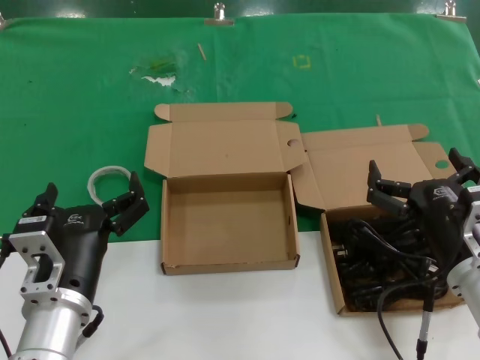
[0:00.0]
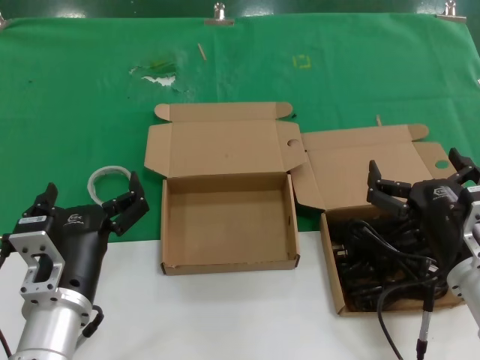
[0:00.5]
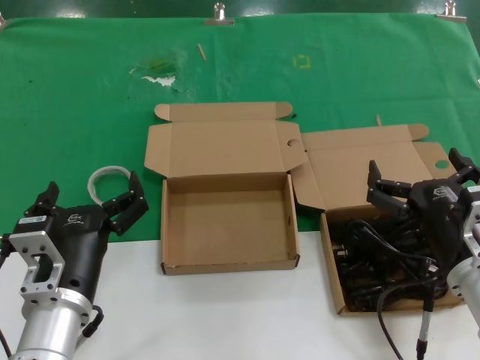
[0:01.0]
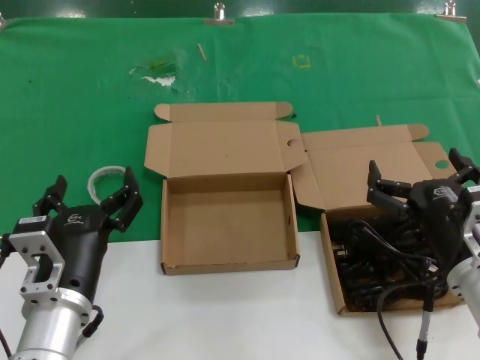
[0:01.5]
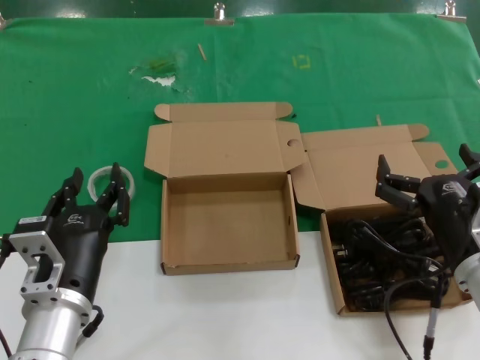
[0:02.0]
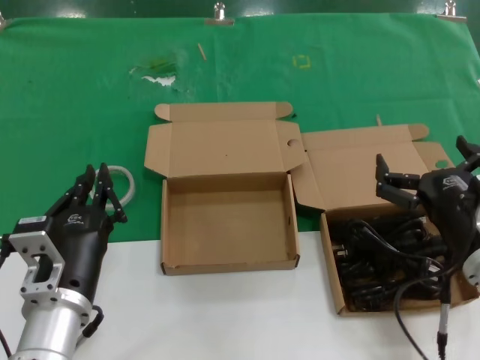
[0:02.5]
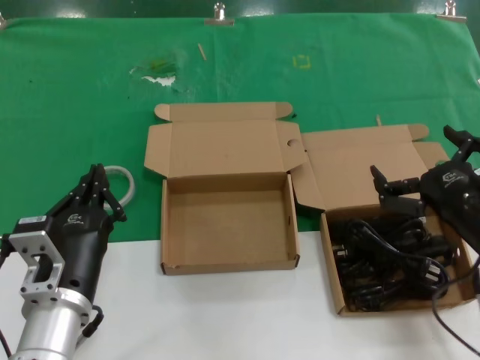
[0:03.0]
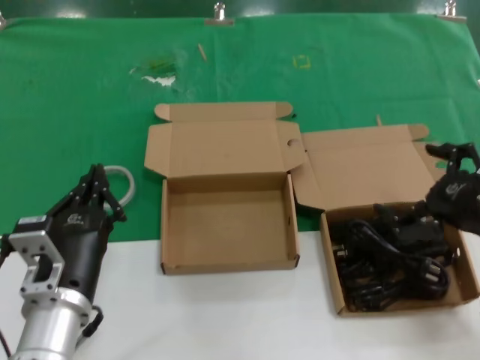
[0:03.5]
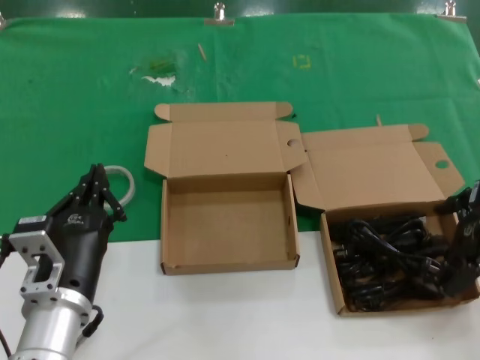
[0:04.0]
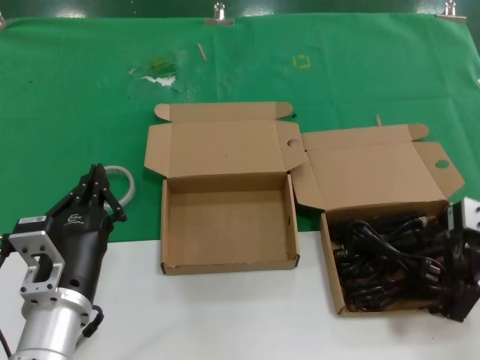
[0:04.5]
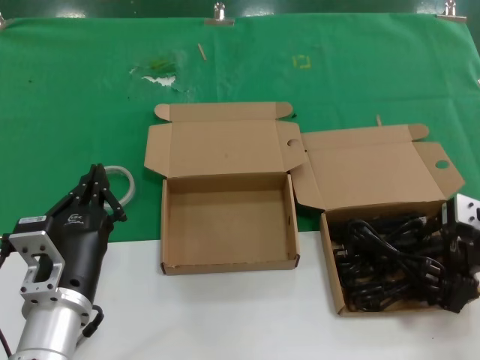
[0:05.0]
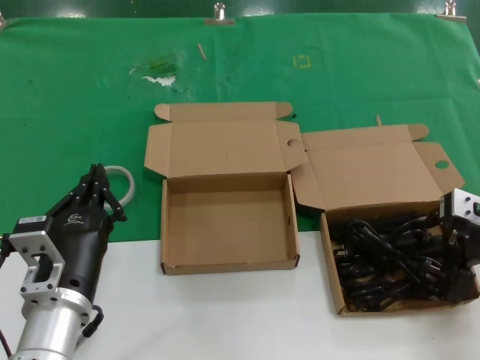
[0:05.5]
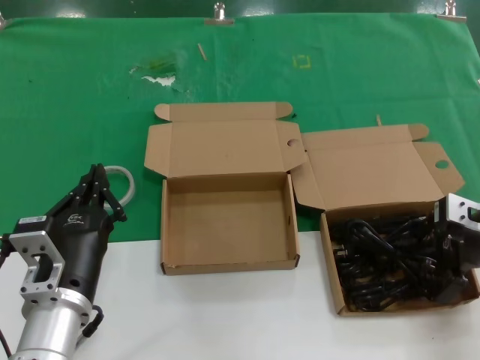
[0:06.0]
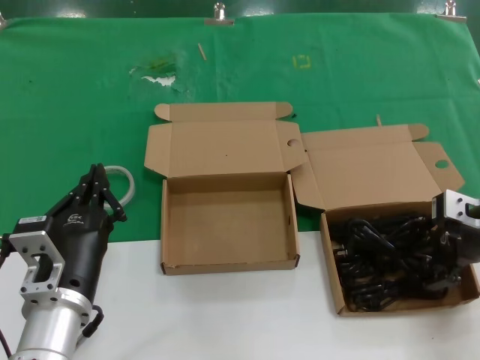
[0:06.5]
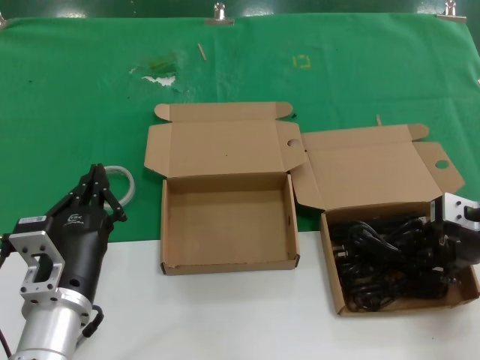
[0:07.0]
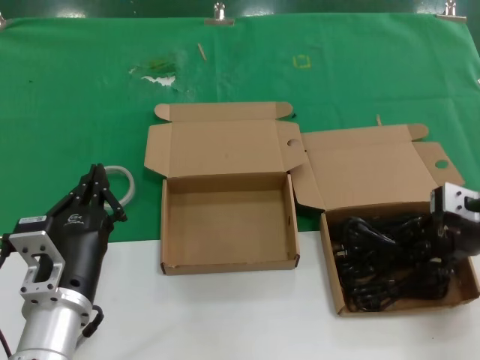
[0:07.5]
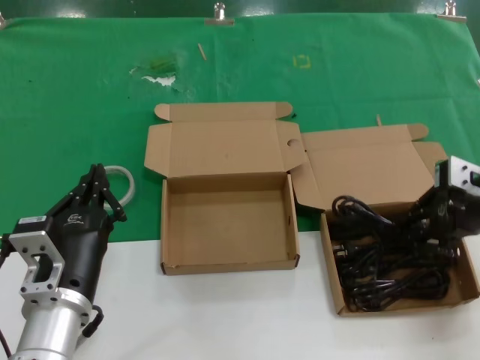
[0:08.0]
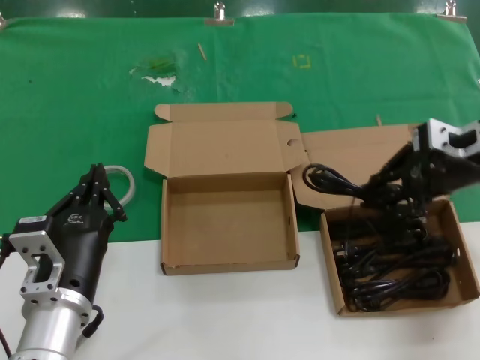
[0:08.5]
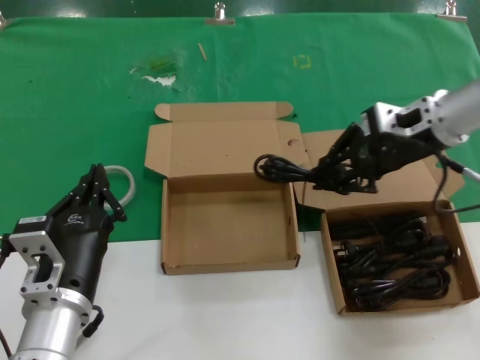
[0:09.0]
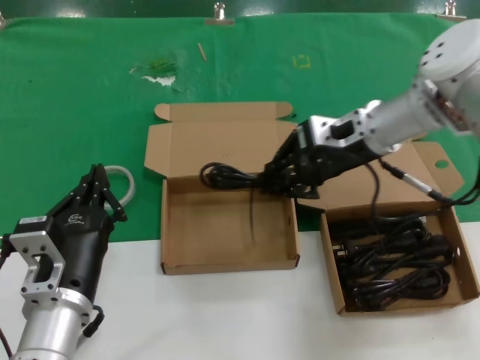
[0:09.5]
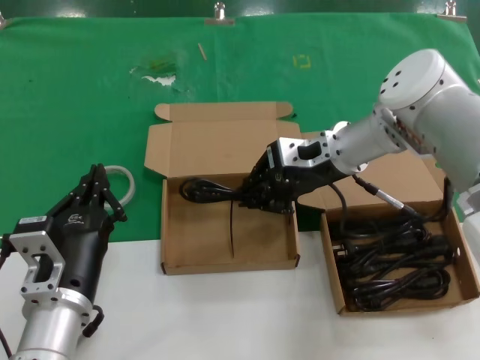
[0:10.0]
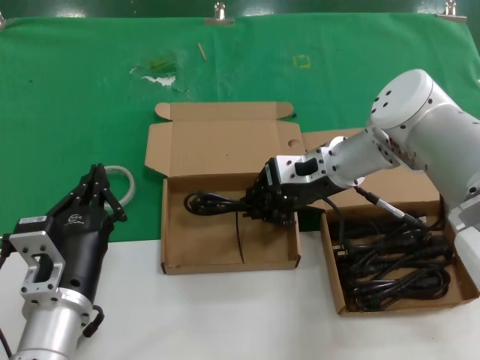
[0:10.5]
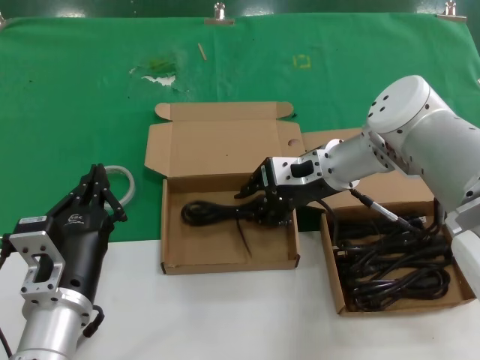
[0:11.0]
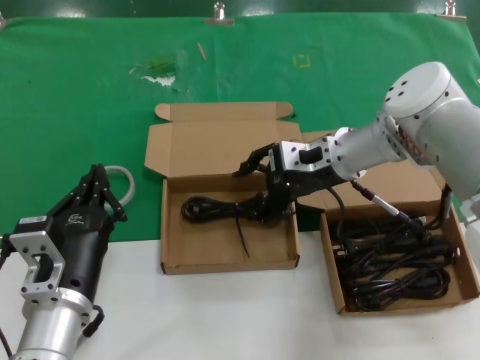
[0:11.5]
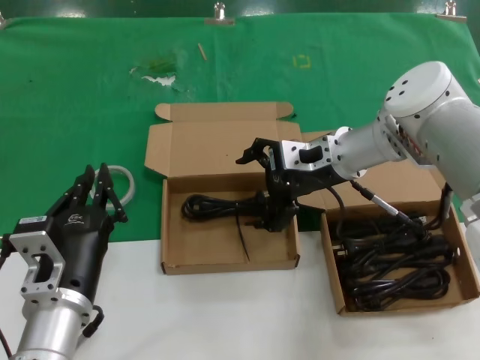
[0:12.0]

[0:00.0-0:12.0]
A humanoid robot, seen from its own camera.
Task of the whole recording: take the parts from the box containing them and put them into an empty box.
Step, 0:00.0 to 0:07.0: Grasp the data cable.
Step, 0:07.5 to 0:11.0: Place the data cable in the another box.
0:00.0 to 0:02.0: Neither hand changes place.
0:02.0 to 0:04.0: The right hand moves to the right, upward and forward, some 15 cm.
0:04.0 to 0:06.0: The right hand goes about 5 cm forward.
0:06.0 to 0:08.0: The right hand goes some 5 cm upward.
0:08.0 to 0:10.0: The right hand heads to the left and forward, covering roughly 20 cm.
0:10.0 to 0:12.0: The hands move only a little.

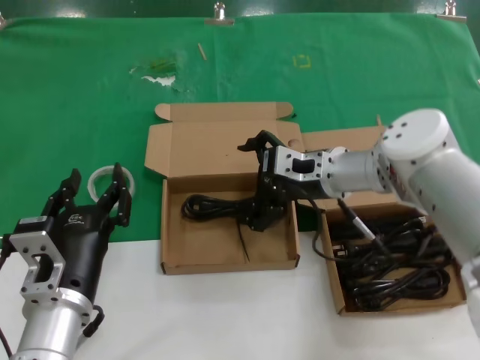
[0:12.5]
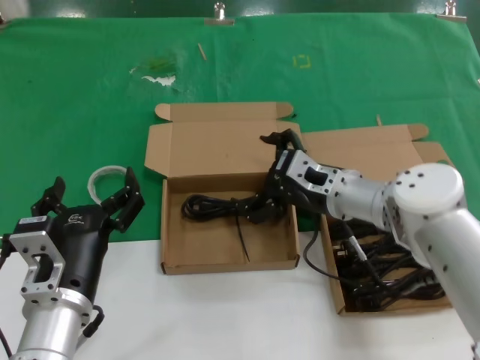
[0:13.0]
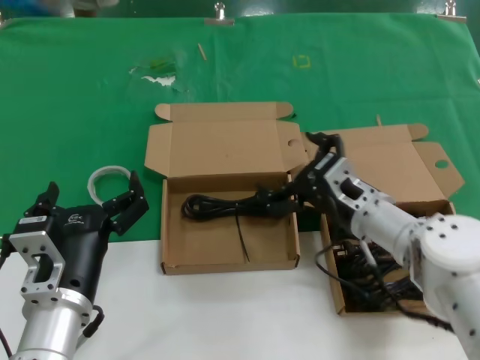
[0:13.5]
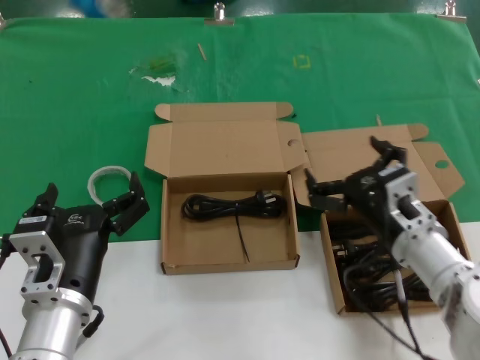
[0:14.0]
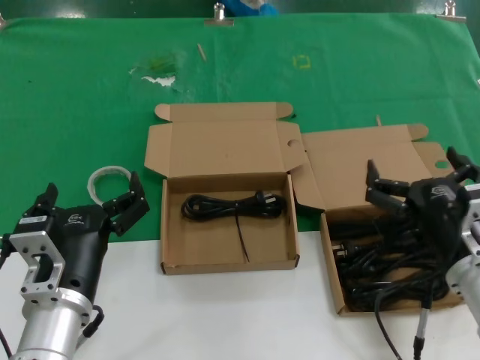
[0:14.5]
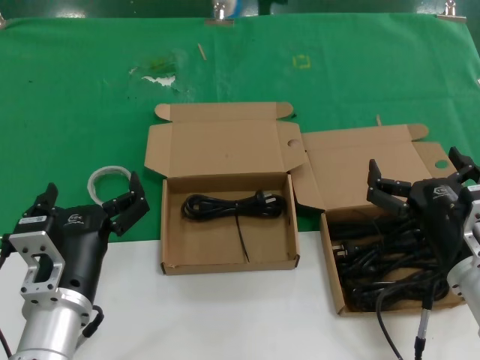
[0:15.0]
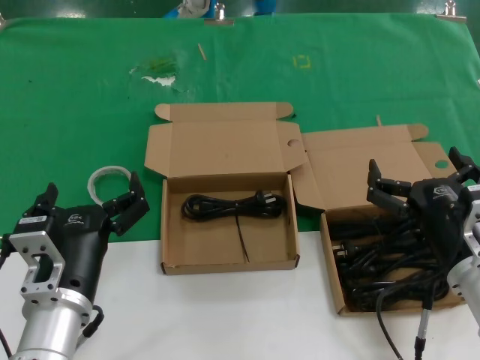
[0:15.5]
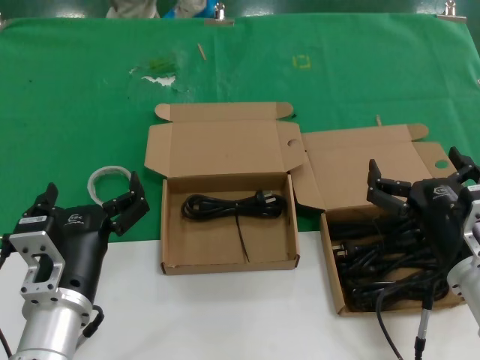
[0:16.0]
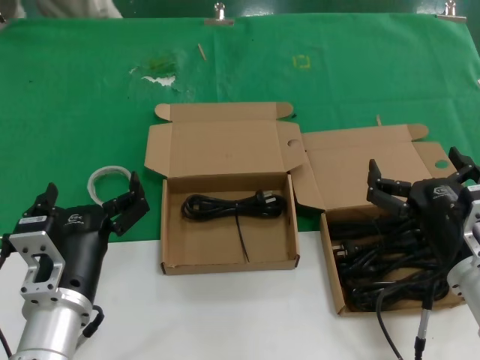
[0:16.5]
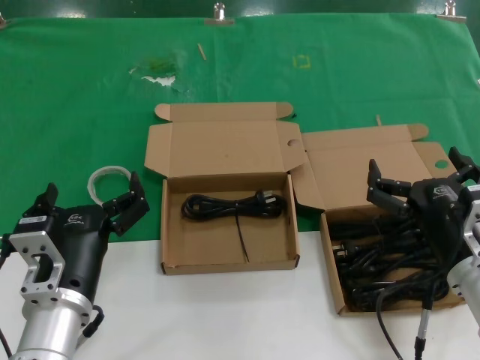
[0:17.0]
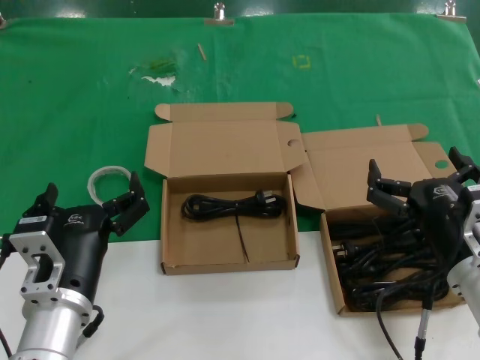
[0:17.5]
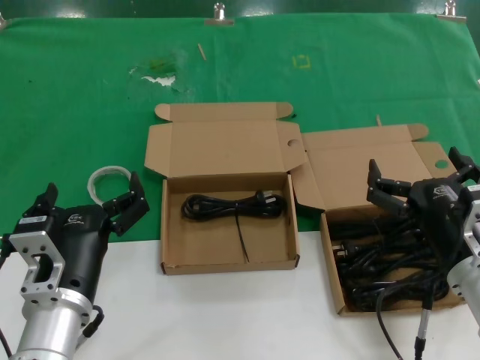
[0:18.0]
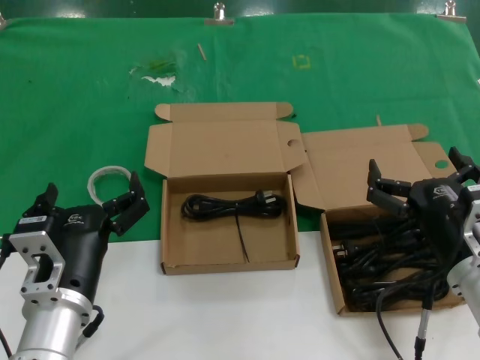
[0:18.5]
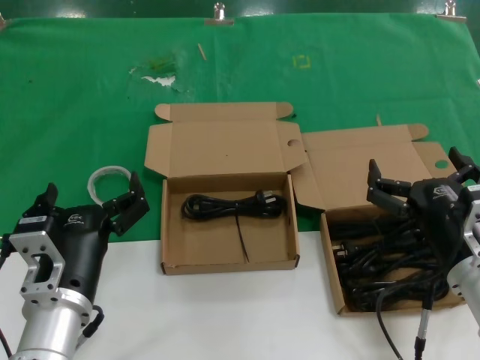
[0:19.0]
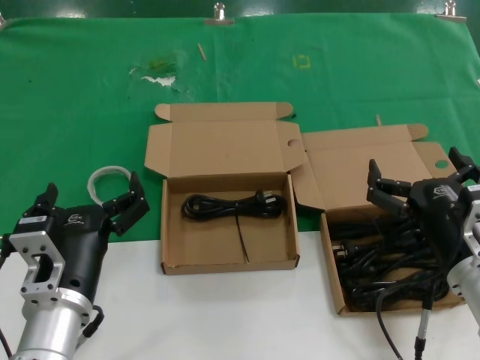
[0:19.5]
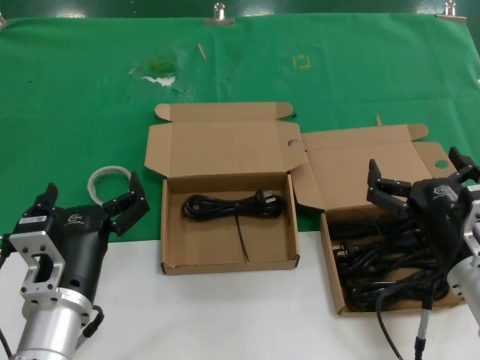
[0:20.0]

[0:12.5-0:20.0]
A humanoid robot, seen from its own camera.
Task of the whole recording: take the parts from the box containing them and put them into an empty box.
0:12.5 to 0:14.5: The right hand moves backward and to the right, some 20 cm.
0:14.5 to 0:20.0: Neither hand changes place.

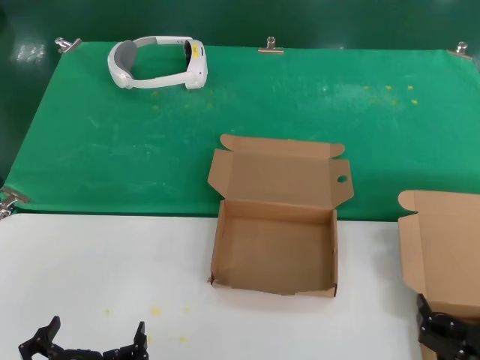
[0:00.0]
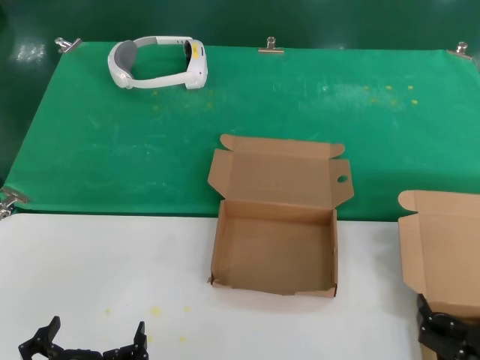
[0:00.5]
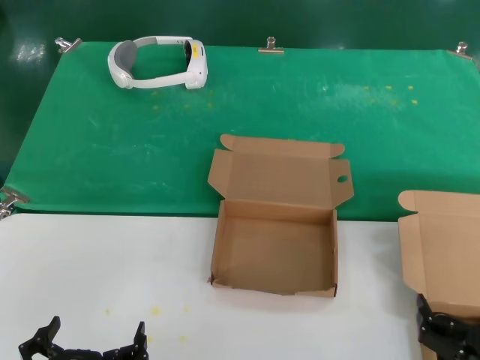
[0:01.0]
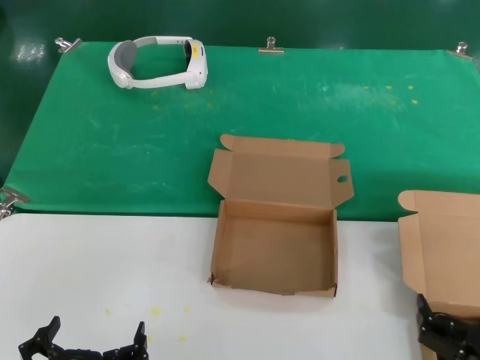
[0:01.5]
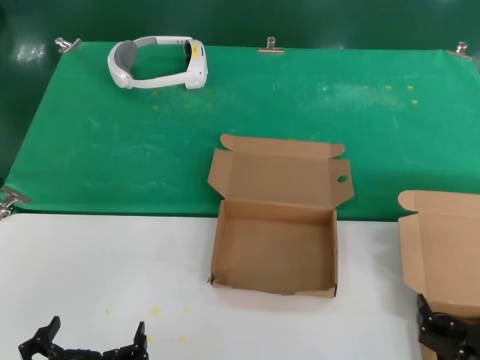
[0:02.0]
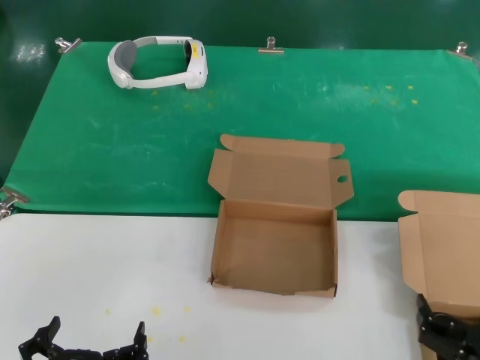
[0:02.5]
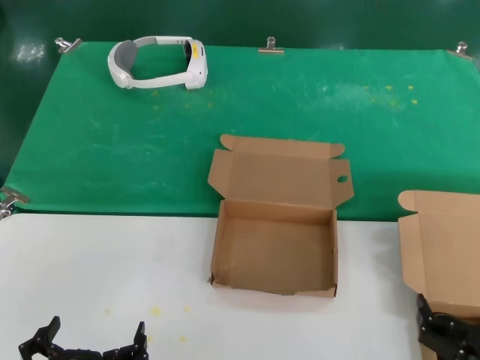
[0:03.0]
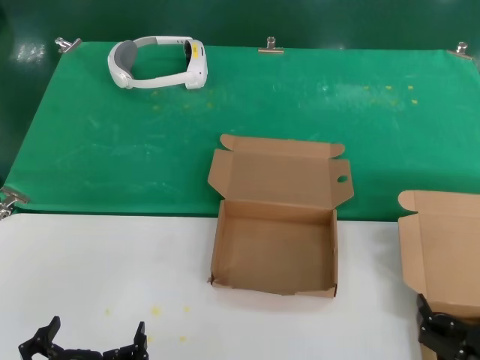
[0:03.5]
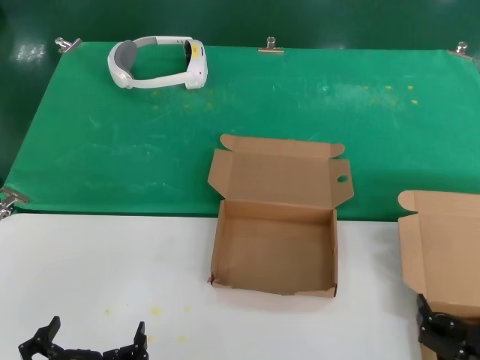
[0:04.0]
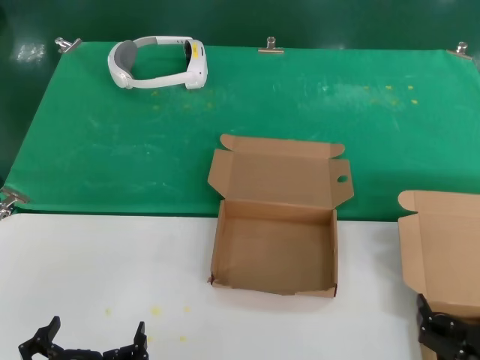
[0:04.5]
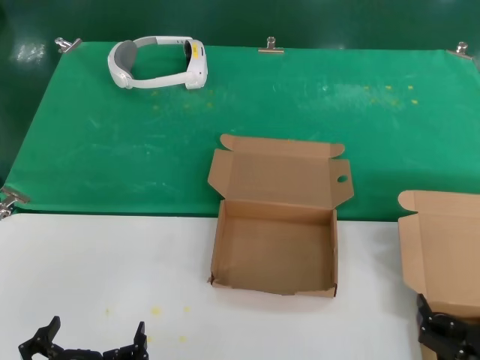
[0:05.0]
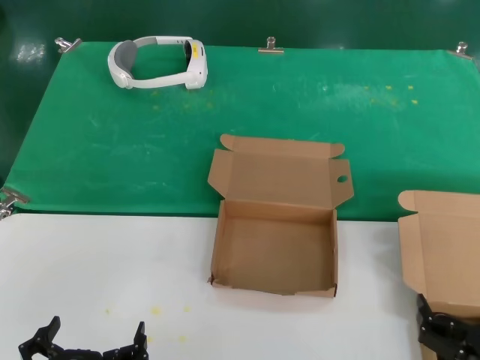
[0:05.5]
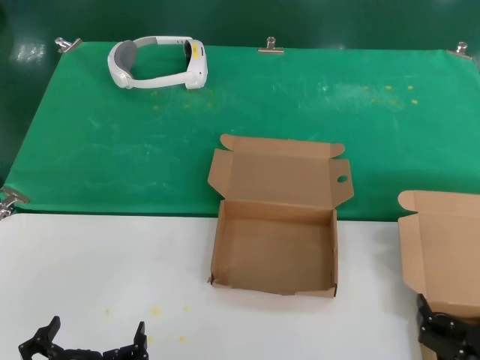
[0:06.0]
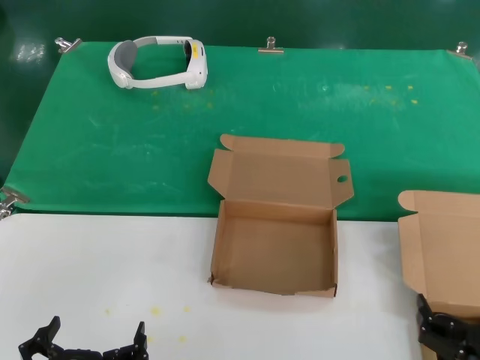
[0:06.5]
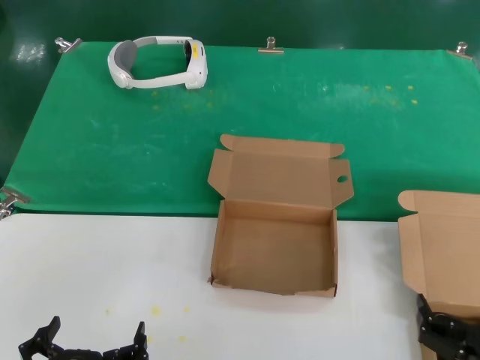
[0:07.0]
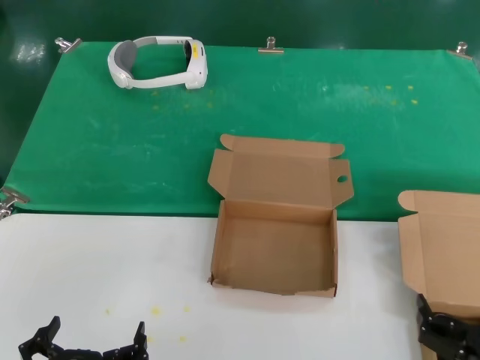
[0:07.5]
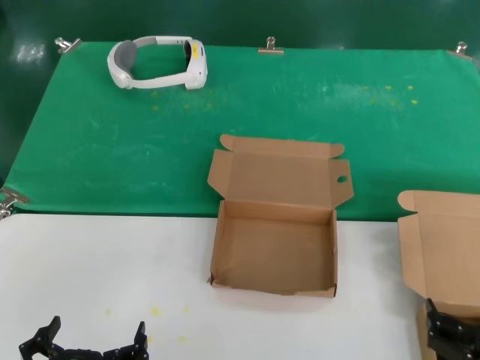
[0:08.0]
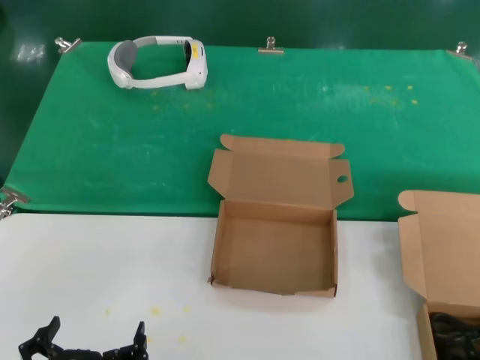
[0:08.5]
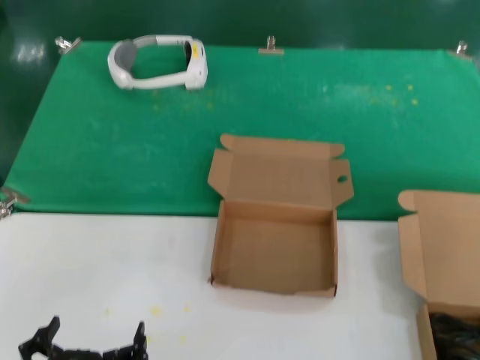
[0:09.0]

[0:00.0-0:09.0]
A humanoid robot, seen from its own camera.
Task of the whole recording: take the parts from the box containing them and put them into an empty box.
0:00.0 to 0:07.0: Both hands stay put.
0:07.0 to 0:09.0: The right hand goes about 5 cm to the right.
